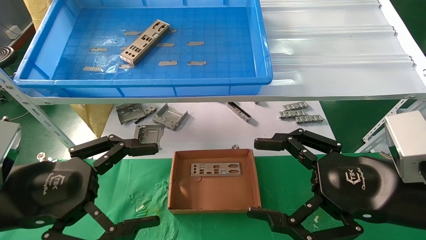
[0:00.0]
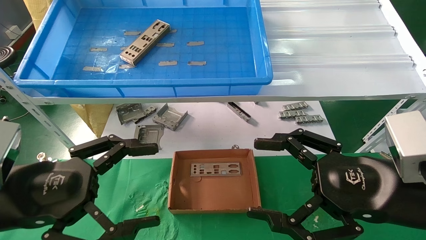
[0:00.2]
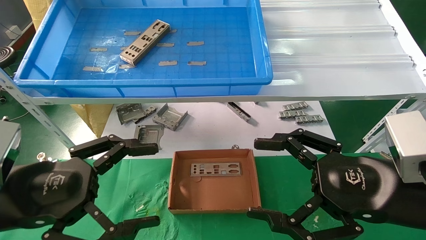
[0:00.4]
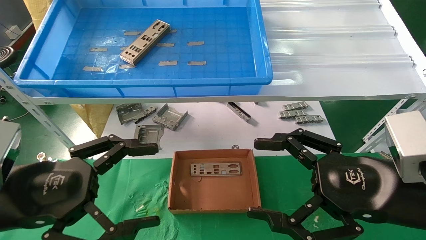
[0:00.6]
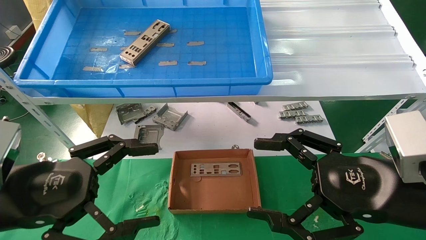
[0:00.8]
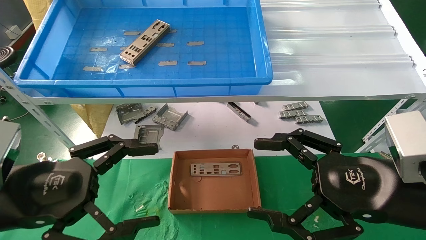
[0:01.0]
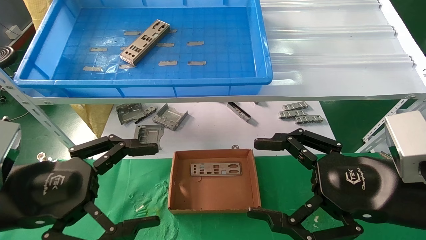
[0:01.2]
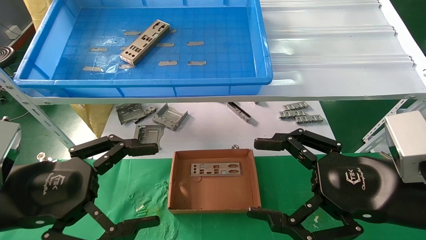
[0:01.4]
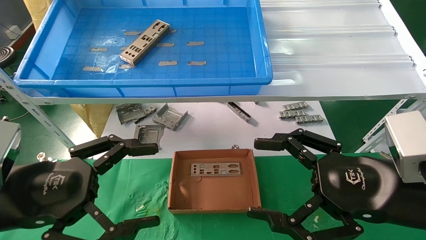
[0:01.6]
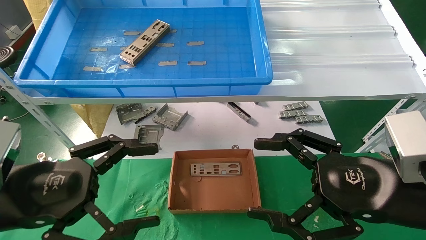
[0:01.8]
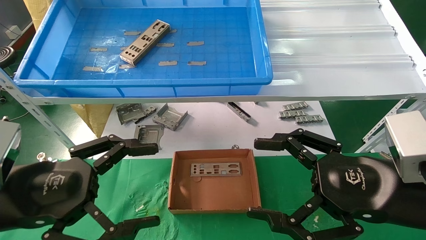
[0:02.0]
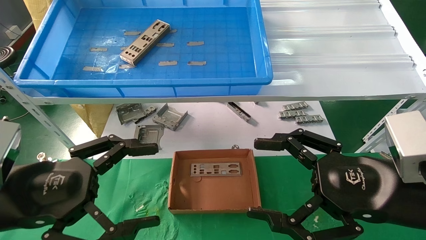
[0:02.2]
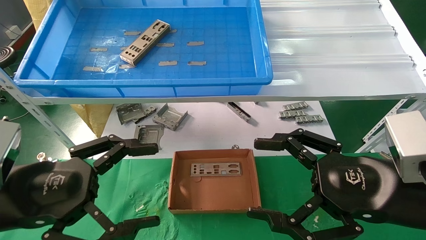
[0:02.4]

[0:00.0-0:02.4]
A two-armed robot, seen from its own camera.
Task of the whole recording: pick up the parts on the tray and put them in the cardboard box.
0:00.0 to 0:02.4: Both grippers stay put.

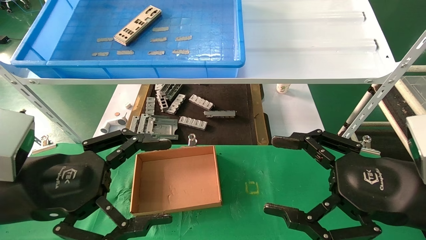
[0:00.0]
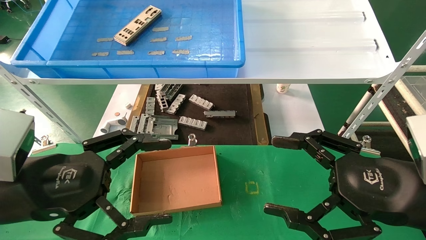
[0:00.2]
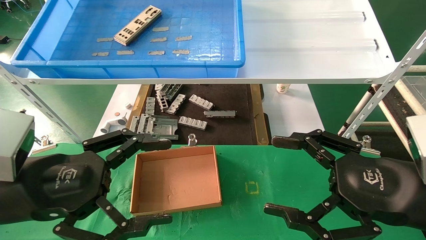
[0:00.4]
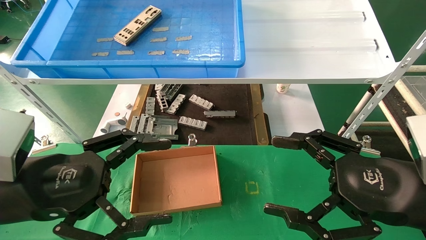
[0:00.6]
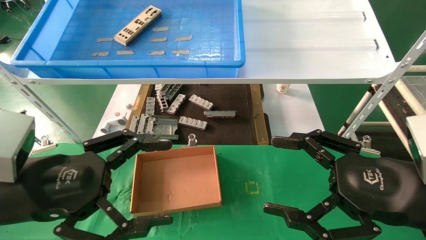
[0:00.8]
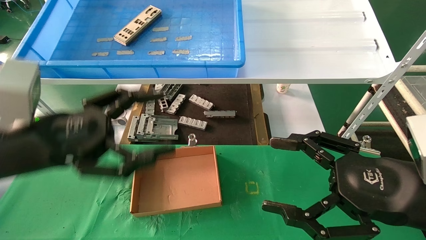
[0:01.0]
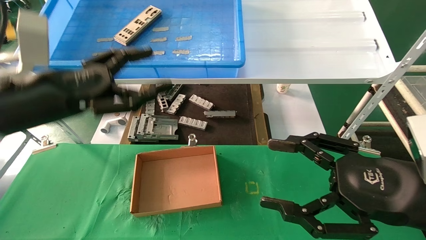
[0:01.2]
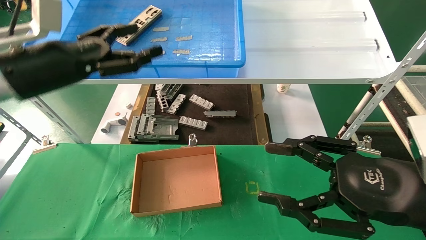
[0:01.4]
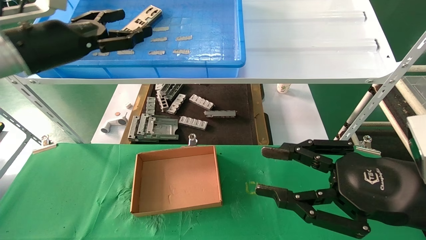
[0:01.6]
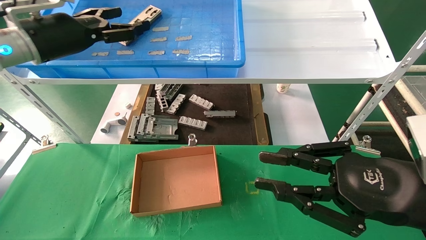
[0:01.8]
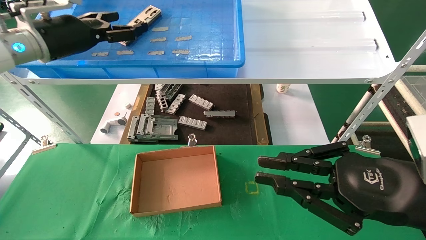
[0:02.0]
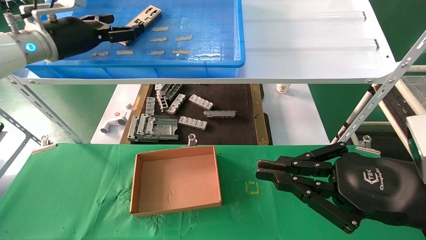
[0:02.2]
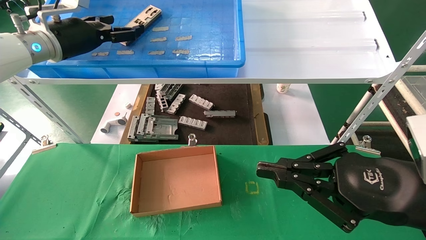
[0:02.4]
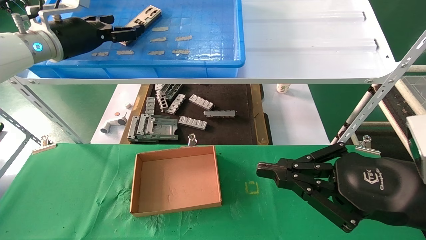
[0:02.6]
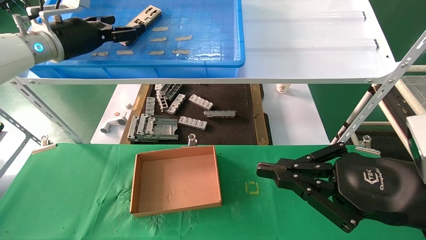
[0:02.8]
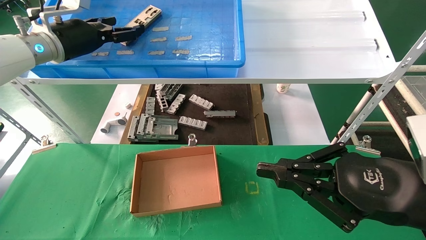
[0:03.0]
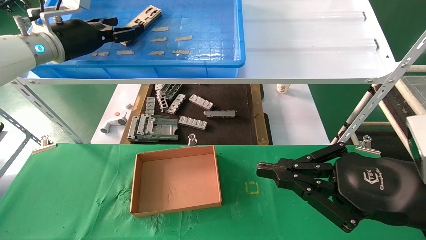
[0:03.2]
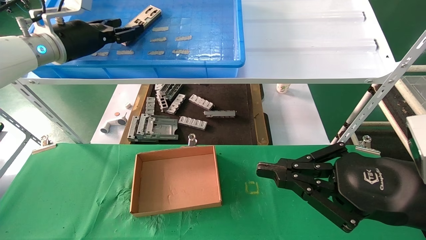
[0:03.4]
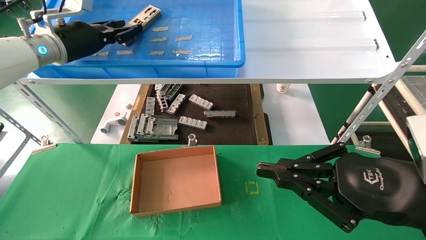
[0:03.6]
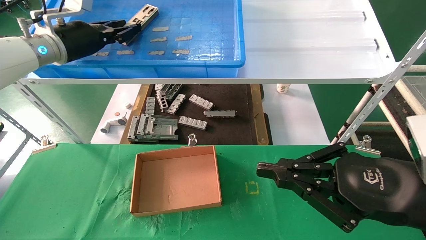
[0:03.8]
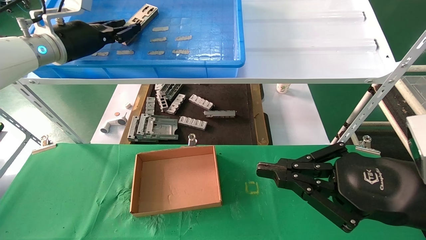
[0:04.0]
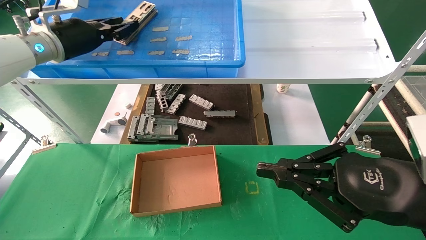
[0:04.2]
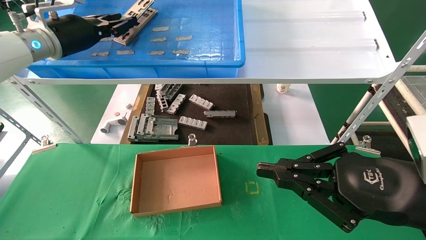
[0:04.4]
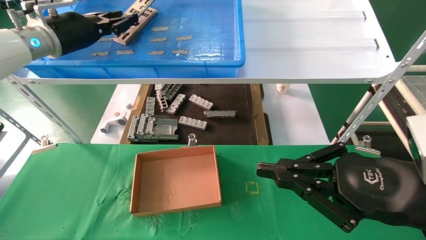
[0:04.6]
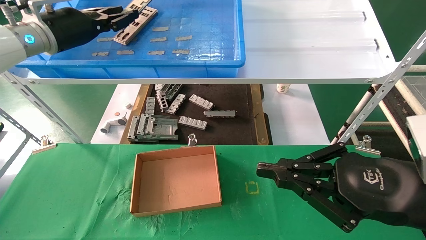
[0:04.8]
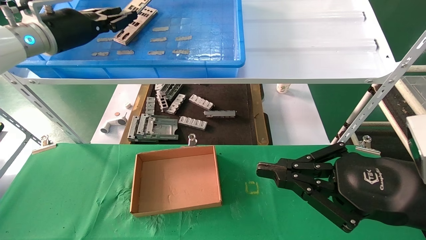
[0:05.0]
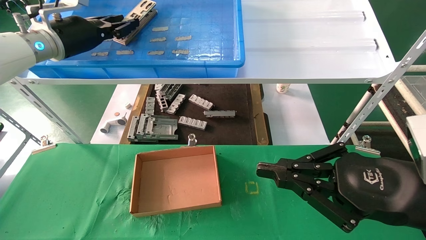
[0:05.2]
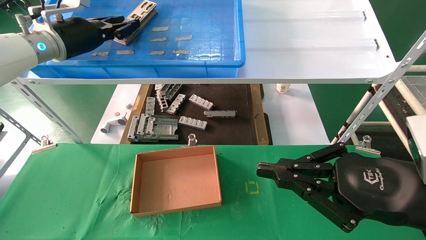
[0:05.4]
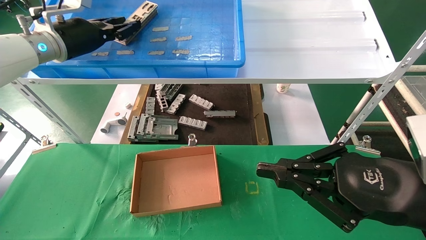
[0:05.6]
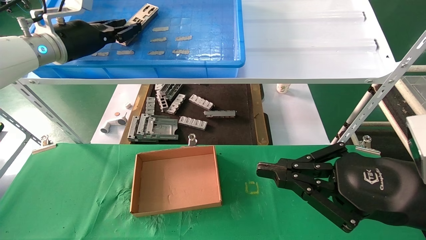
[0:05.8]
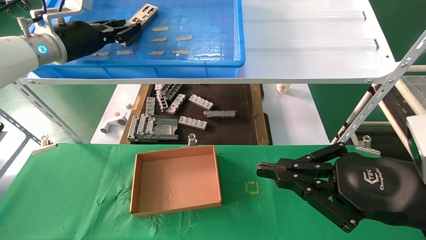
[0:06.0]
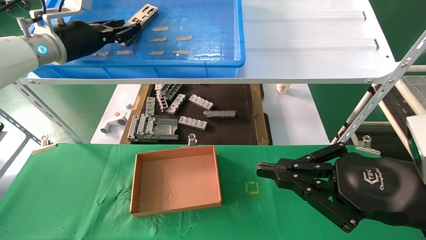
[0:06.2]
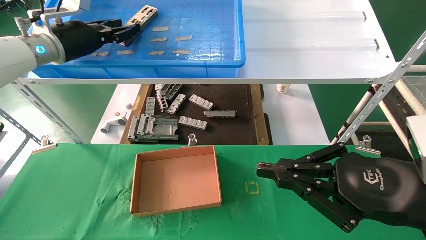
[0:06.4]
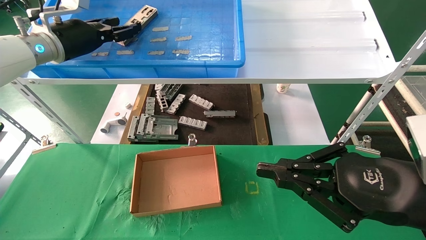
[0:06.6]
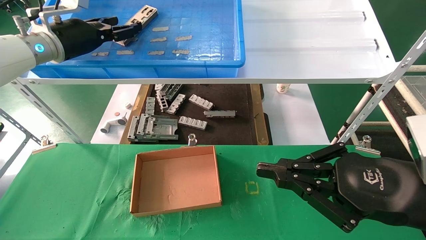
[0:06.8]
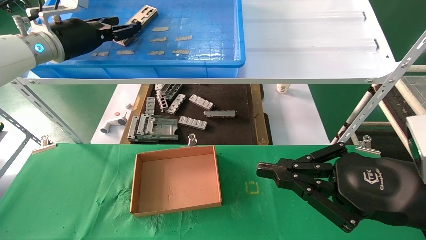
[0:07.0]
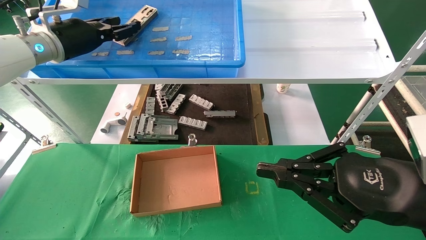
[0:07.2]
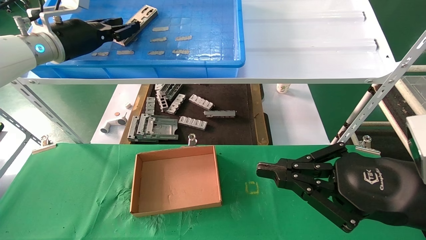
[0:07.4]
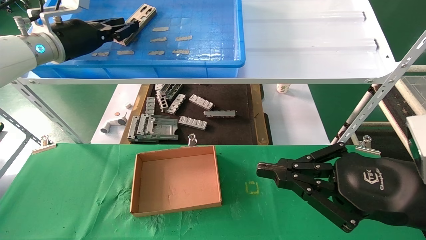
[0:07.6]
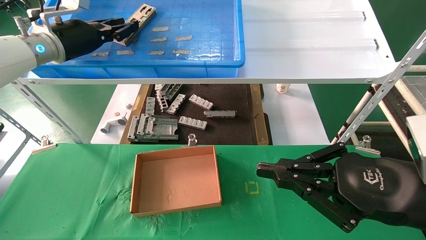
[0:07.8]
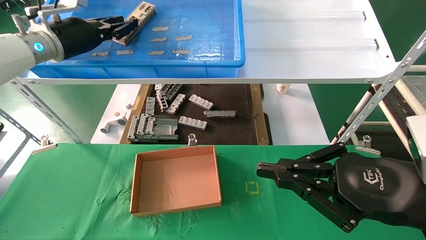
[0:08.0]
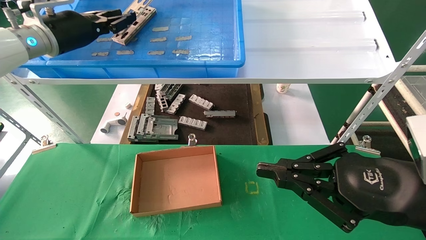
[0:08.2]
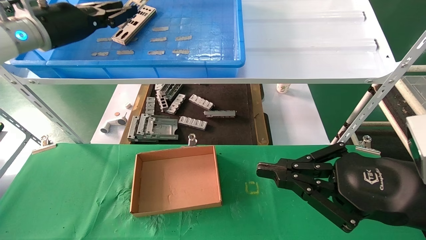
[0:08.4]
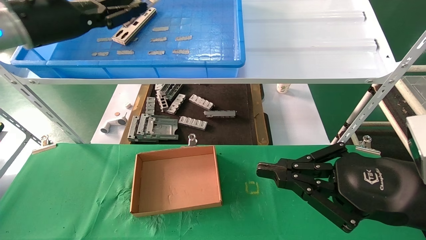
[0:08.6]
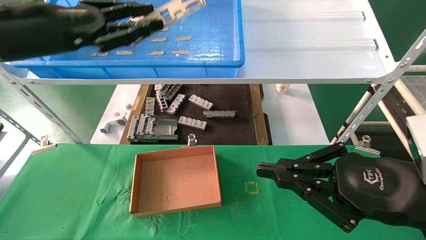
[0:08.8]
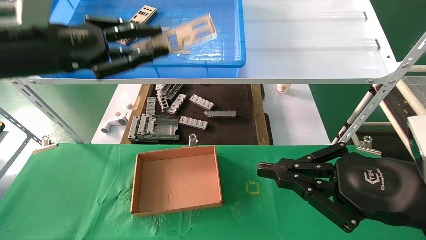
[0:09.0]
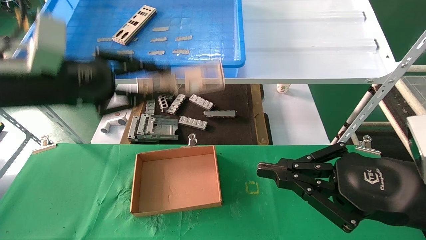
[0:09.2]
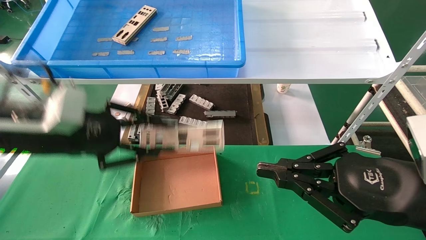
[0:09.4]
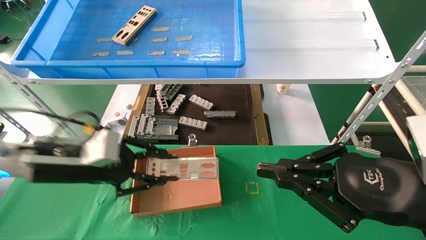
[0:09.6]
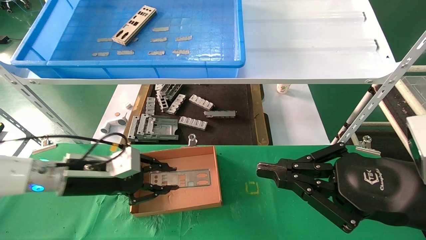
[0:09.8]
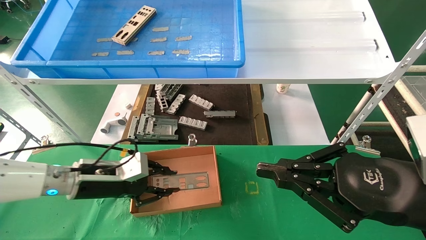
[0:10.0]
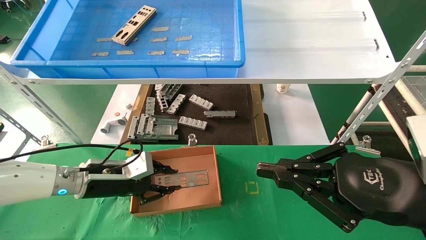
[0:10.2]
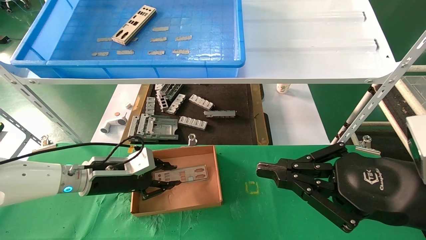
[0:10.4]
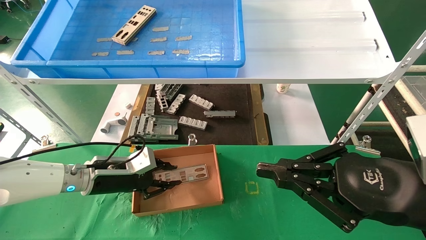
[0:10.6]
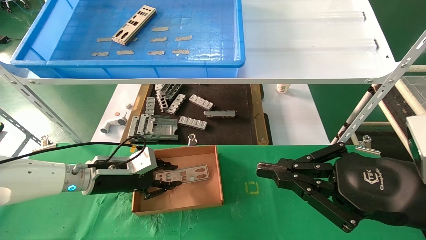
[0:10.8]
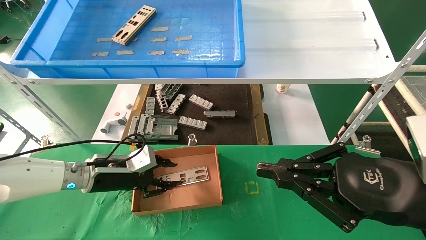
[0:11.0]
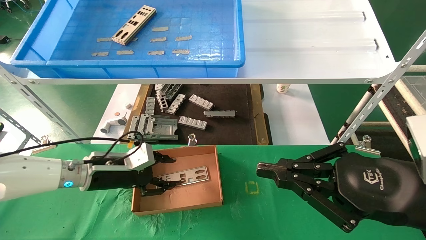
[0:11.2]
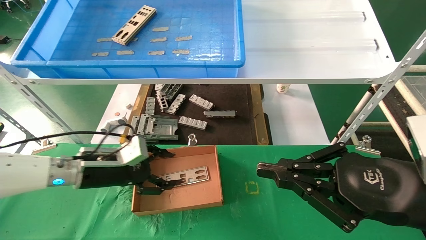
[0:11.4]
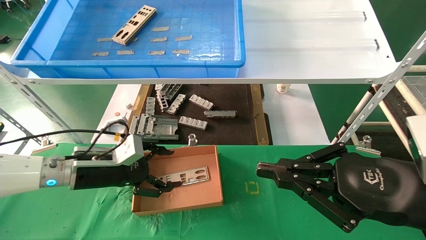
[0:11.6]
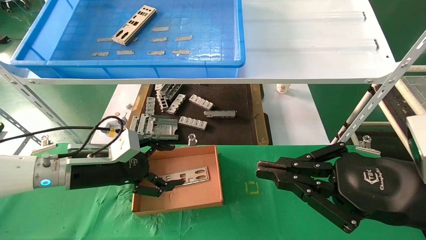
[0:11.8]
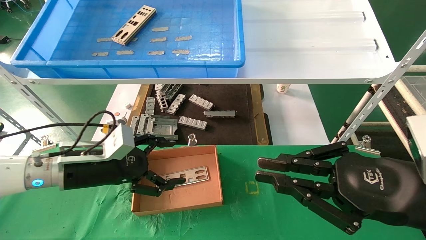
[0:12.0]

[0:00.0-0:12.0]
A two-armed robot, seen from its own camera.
Task of the whole recording: pick up the parts on the tray and put them in the cardboard box.
Step, 0:01.2 to 0:08.0: Pick up the IO bracket from the container box.
Step, 0:08.2 to 0:11.0: Place the IO bracket into the ingredient slot.
0:00.0 to 0:01.6: The right gripper closes. The left gripper moves forward and upward, approximately 20 cm.
0:01.6 to 0:03.0: The left gripper shifts some 10 cm forward; the right gripper closes.
0:03.0 to 0:04.4: The left gripper closes.
0:04.4 to 0:06.0: Neither gripper changes place.
0:06.0 to 0:07.6: The left gripper opens and closes again.
0:07.6 to 0:09.0: The left gripper travels backward by roughly 15 cm.
0:09.0 to 0:10.4: The left gripper travels downward by about 25 cm.
0:10.4 to 0:12.0: The left gripper ends up some 5 cm from where it was, and opens its fingers.

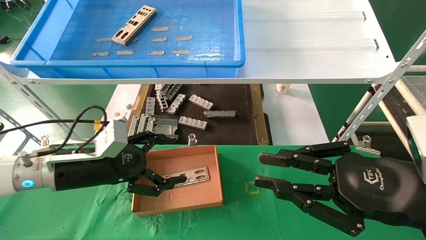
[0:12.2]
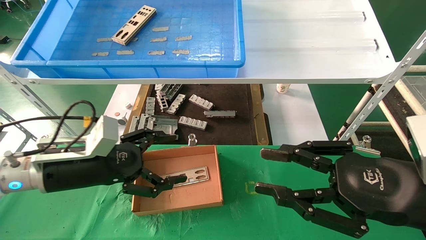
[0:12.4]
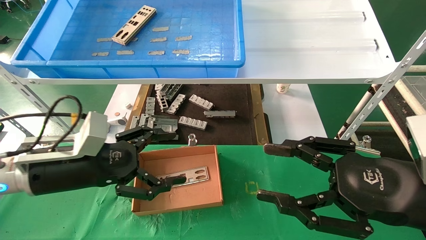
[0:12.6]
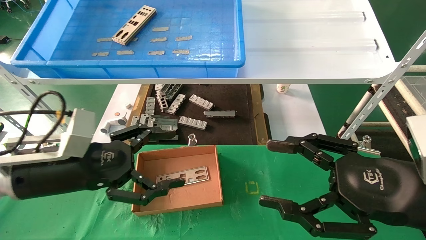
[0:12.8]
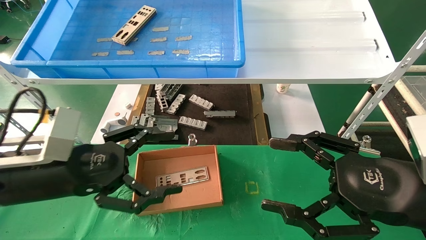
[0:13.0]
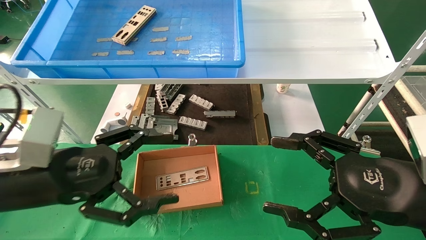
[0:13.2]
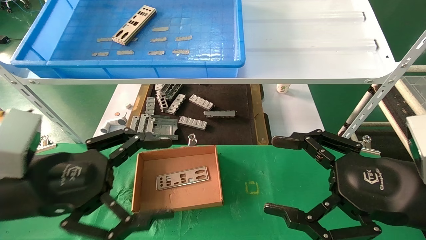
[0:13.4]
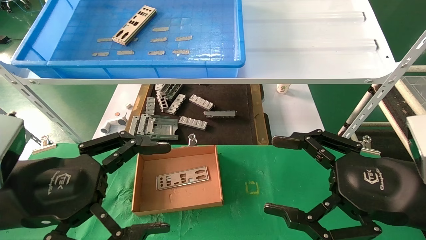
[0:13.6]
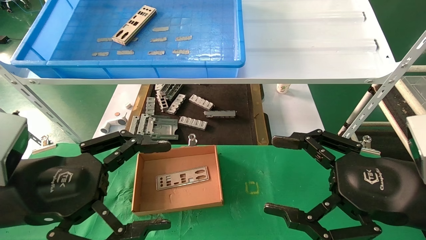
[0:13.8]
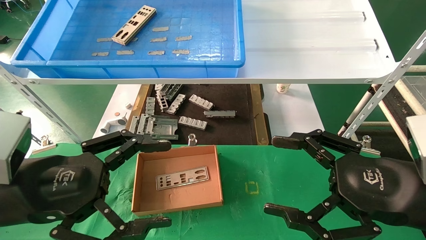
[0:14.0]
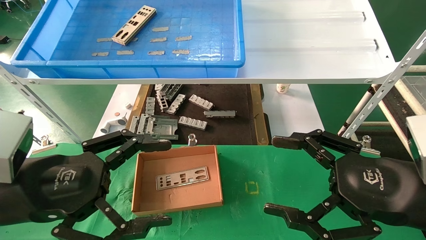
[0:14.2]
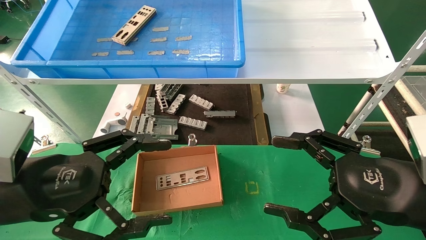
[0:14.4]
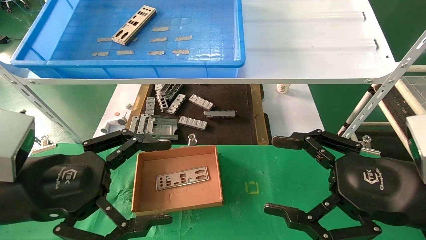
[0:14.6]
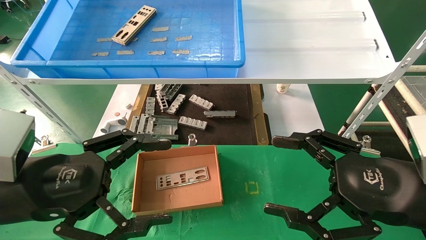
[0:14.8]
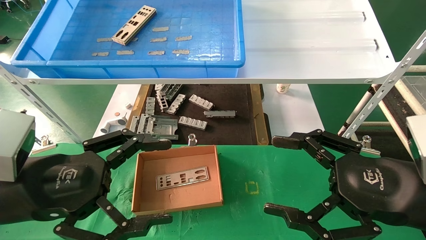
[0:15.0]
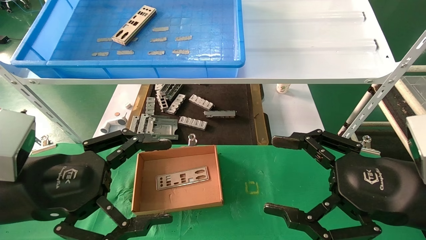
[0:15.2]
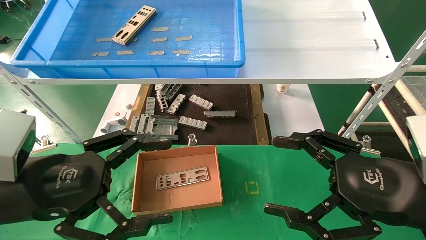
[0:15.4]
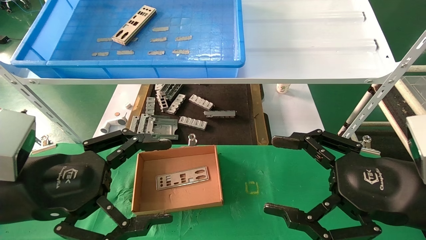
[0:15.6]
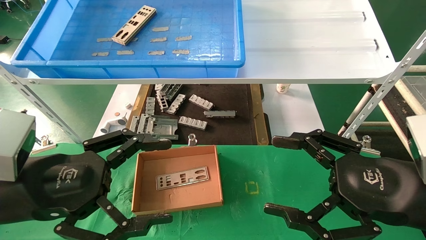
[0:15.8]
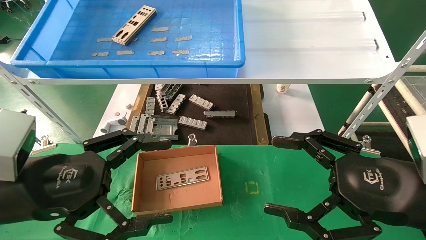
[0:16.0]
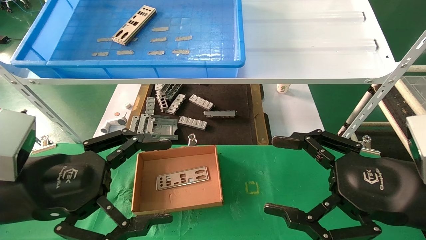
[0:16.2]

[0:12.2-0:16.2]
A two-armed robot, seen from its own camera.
Task of the whole recording: pick up the parts on the tray and put them in the cardboard box.
0:12.2 to 0:13.6: The left gripper travels backward and upward by about 15 cm, while the right gripper opens.
0:13.6 to 0:16.2: Both grippers stay about where they are.
